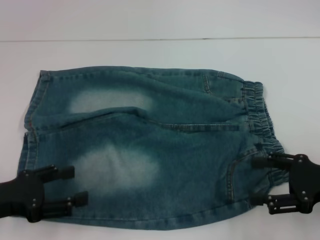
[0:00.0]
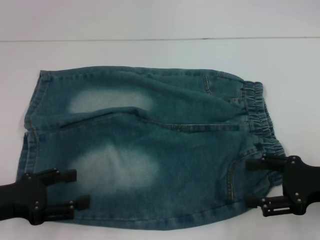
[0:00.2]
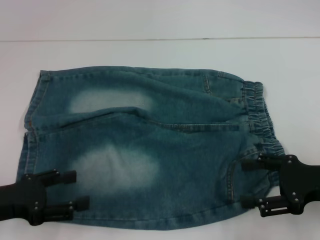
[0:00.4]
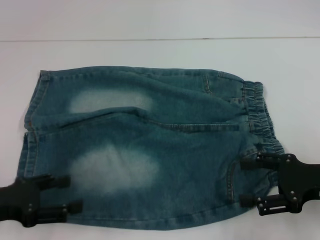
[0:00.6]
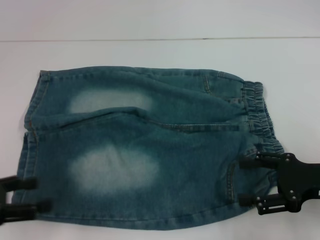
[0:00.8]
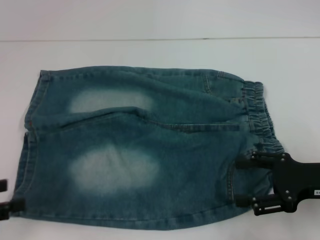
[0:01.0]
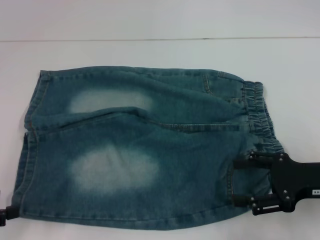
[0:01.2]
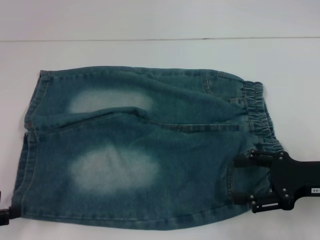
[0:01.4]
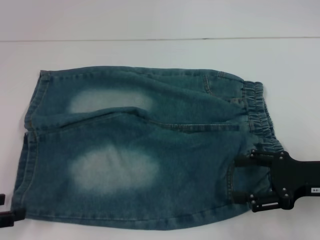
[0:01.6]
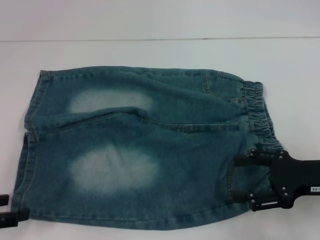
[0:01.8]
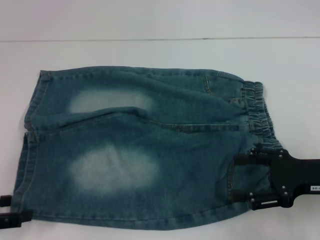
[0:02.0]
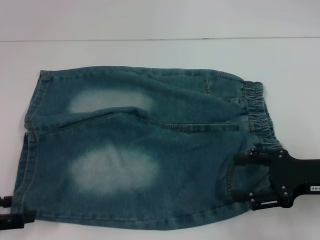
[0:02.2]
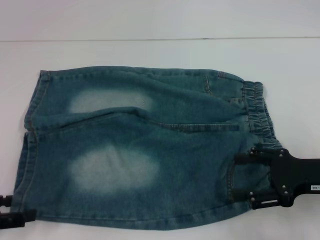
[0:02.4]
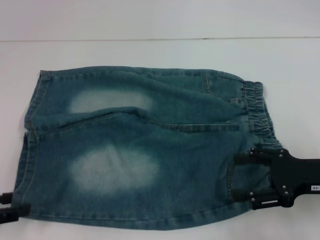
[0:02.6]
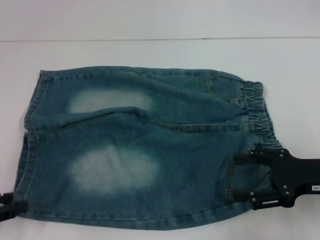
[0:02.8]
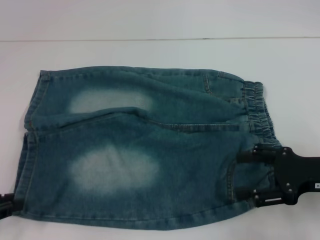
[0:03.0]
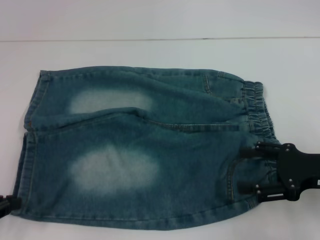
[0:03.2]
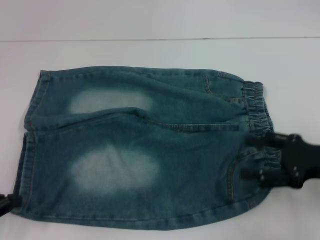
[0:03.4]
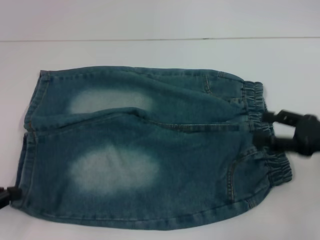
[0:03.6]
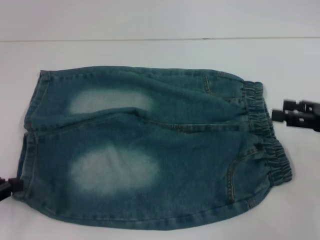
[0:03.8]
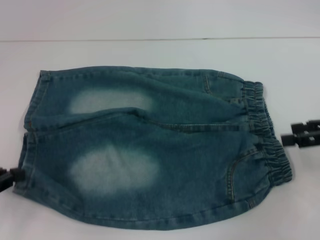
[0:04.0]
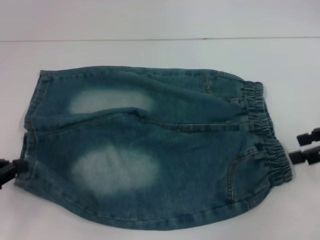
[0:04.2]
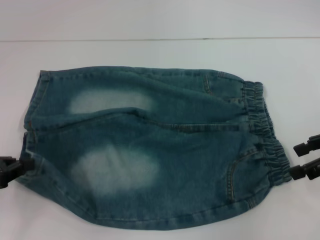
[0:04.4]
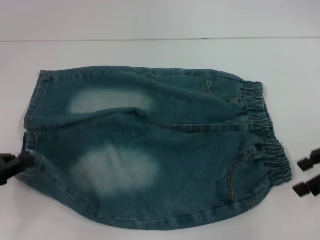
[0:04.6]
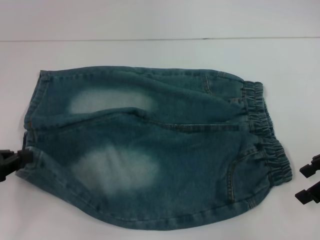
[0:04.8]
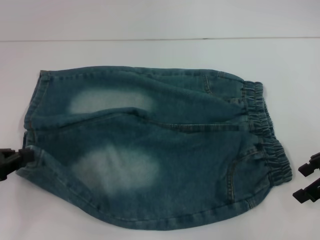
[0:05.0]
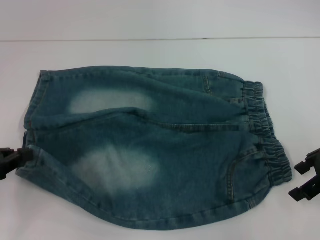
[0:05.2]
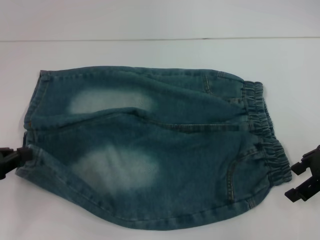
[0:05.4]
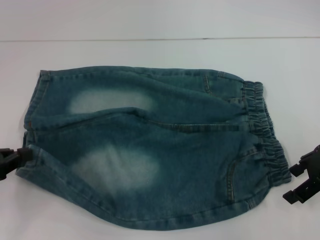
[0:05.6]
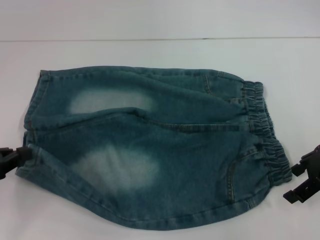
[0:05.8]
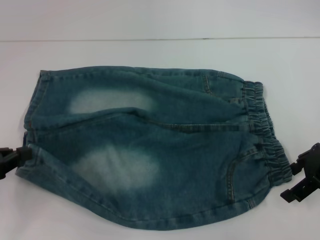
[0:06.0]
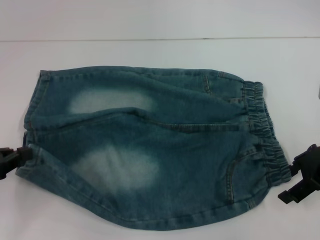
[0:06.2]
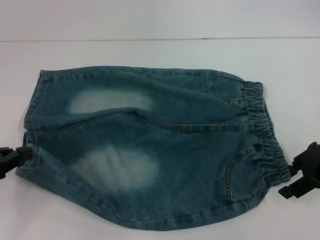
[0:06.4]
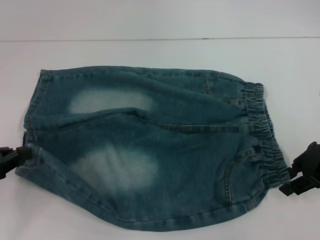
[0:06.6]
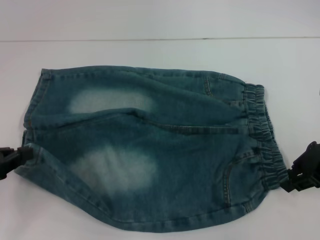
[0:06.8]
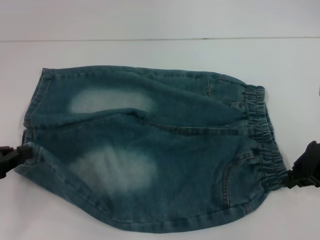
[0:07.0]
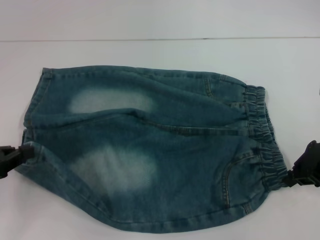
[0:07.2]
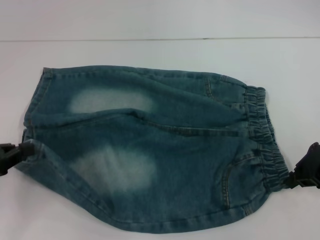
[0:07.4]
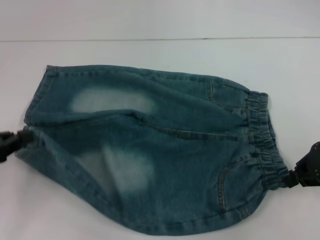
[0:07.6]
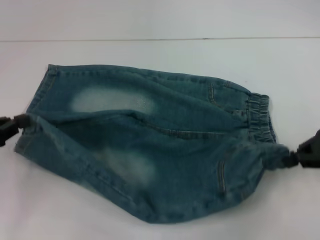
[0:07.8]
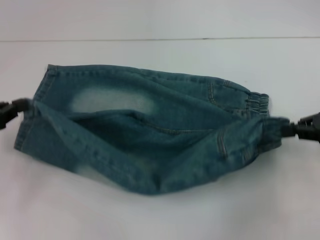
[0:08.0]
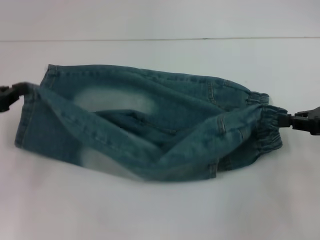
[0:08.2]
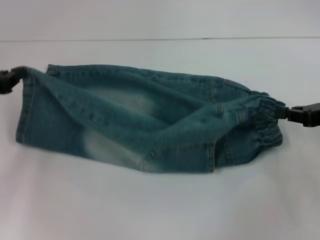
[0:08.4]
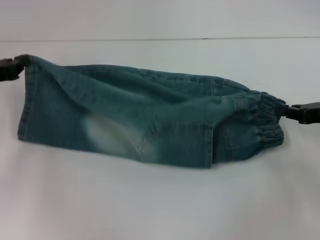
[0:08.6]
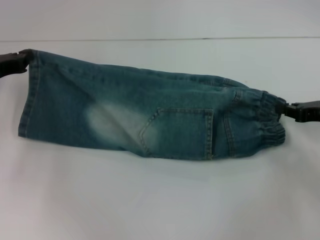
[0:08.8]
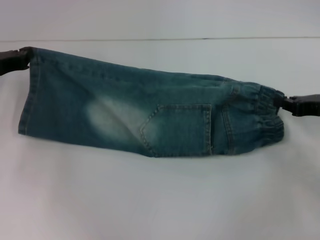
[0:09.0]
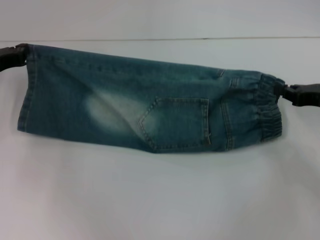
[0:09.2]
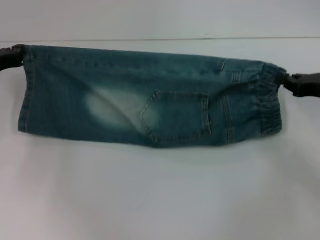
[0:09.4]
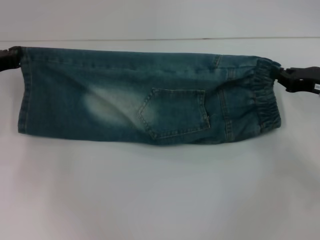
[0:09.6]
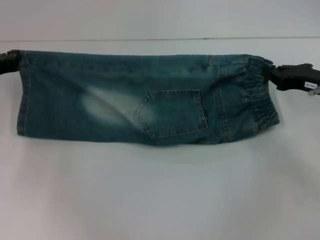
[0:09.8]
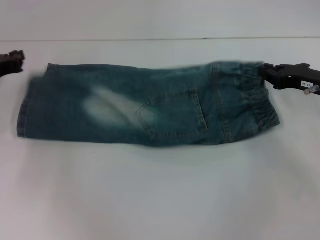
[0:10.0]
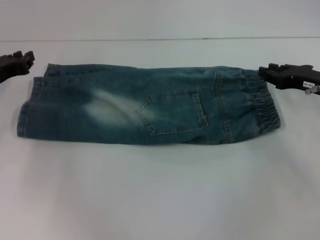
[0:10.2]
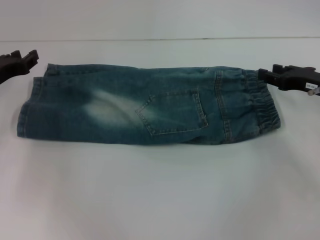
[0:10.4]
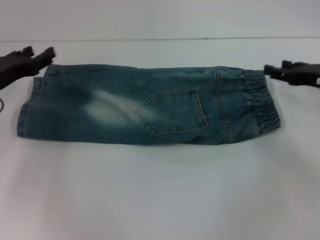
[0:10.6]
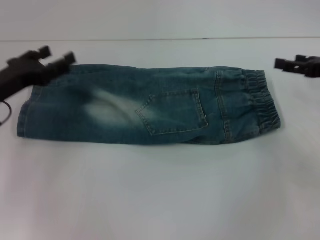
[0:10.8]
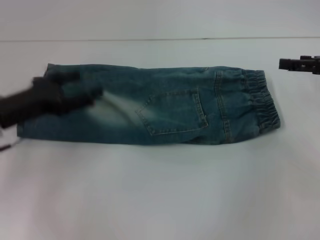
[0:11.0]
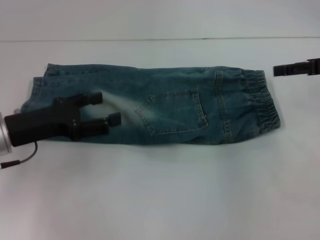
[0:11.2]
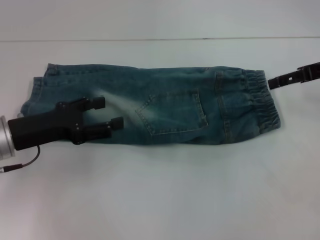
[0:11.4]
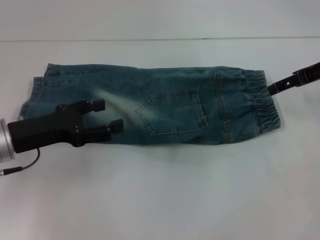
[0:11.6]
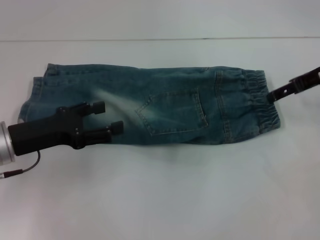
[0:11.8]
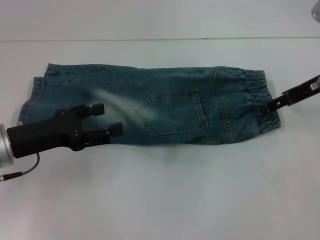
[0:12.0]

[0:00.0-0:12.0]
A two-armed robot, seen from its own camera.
Step, 0:00.0 to 0:03.4: Grab the lower left pant leg with your left hand.
Step, 0:03.8 to 0:07.2: Hold the lower right waistband with your right hand.
Step, 0:07.4 to 0:10.0: Fold upward with your right hand.
0:00.0 to 0:01.6: The left gripper shifts approximately 5 cm to the left.
0:01.6 to 0:03.0: The left gripper closes.
0:03.0 to 0:04.4: The right gripper shifts about 10 cm upward and forward. Meanwhile the left gripper closes.
0:04.4 to 0:06.0: The right gripper shifts by about 5 cm.
0:06.0 to 0:07.6: The right gripper closes up.
0:07.6 to 0:09.0: The left gripper travels forward by about 15 cm; the right gripper shifts some 5 cm downward.
0:09.0 to 0:10.4: The grippers make only small movements.
0:10.4 to 0:12.0: The left gripper heads backward, covering approximately 10 cm, and opens. The right gripper moves upward, about 10 cm, and opens.

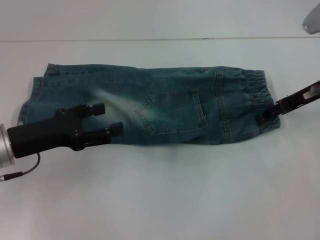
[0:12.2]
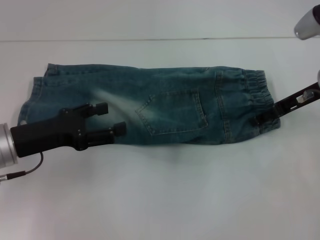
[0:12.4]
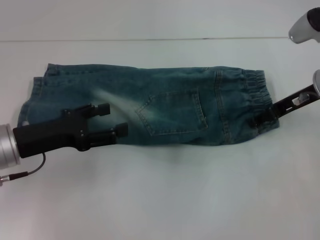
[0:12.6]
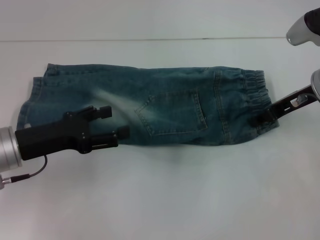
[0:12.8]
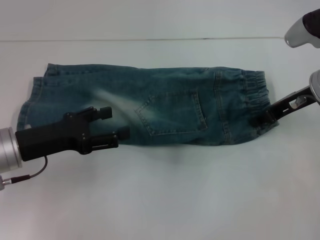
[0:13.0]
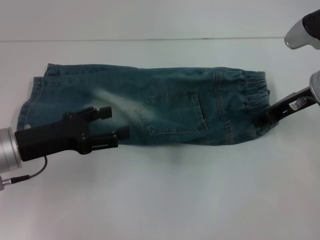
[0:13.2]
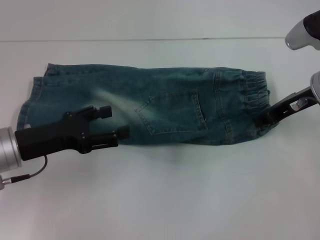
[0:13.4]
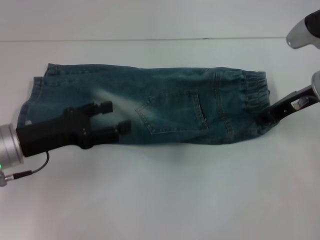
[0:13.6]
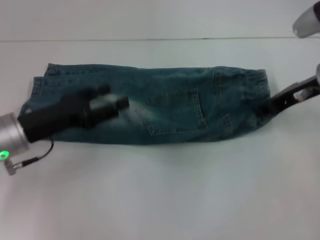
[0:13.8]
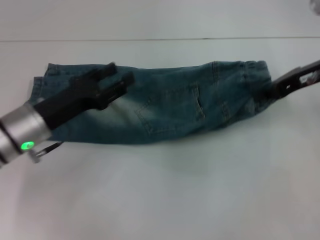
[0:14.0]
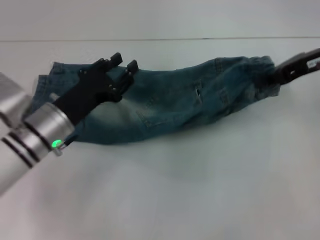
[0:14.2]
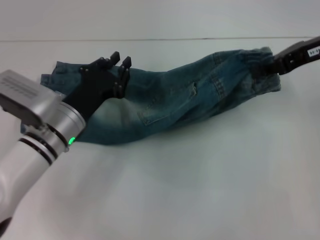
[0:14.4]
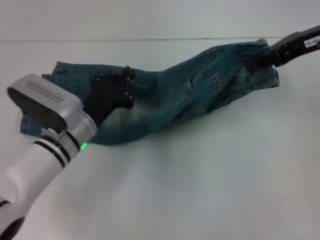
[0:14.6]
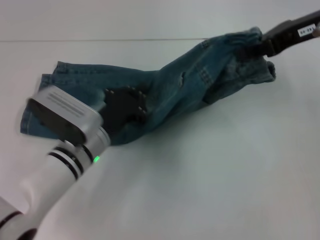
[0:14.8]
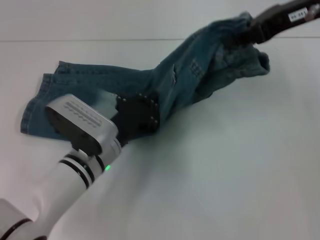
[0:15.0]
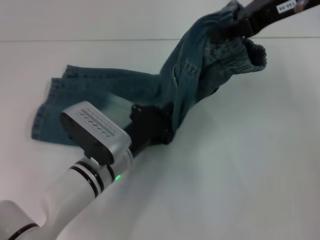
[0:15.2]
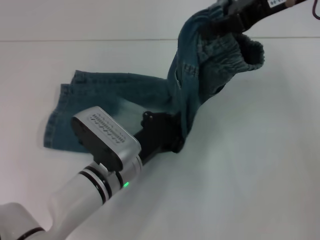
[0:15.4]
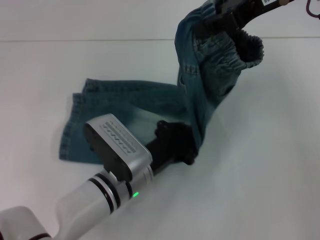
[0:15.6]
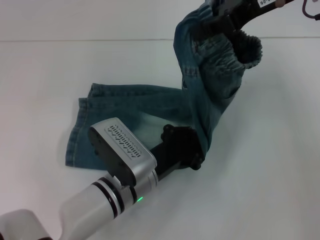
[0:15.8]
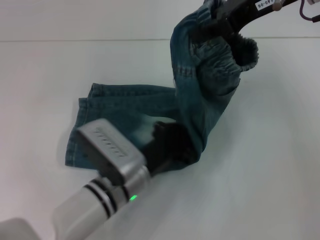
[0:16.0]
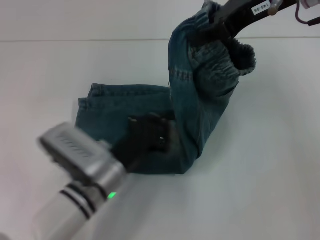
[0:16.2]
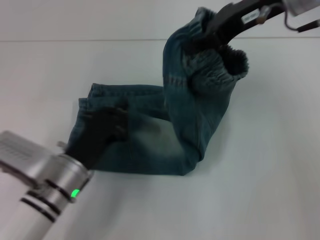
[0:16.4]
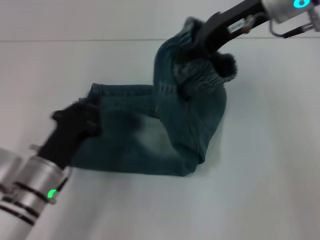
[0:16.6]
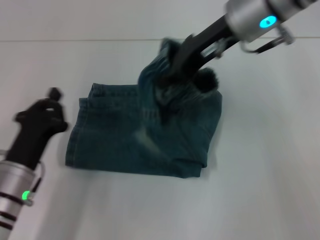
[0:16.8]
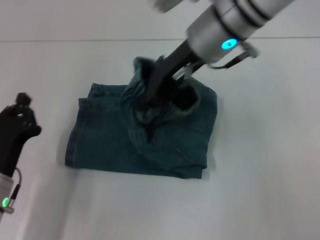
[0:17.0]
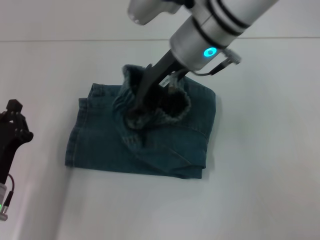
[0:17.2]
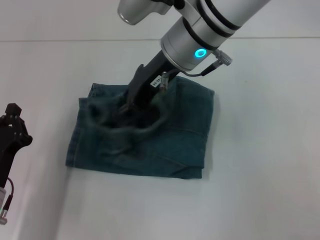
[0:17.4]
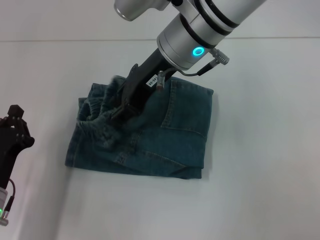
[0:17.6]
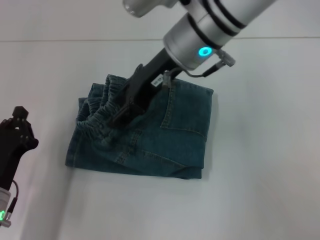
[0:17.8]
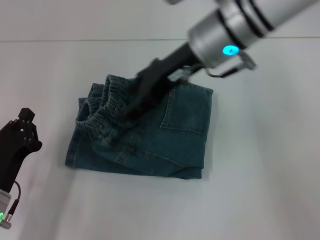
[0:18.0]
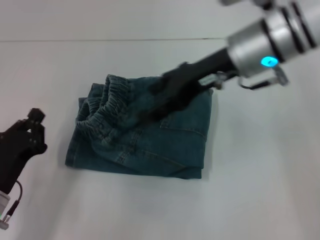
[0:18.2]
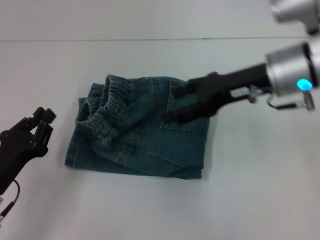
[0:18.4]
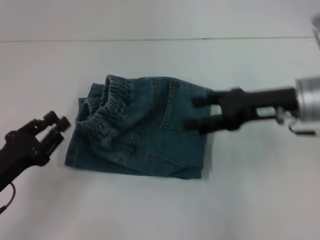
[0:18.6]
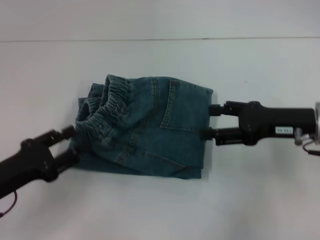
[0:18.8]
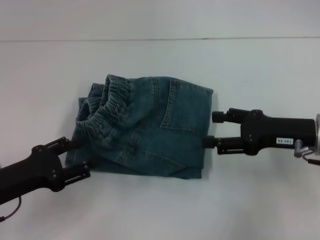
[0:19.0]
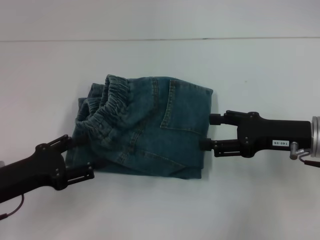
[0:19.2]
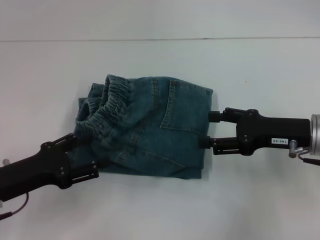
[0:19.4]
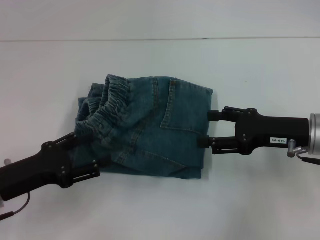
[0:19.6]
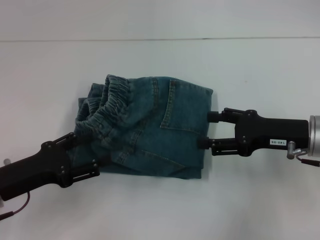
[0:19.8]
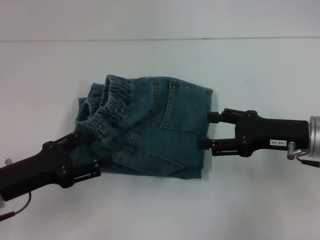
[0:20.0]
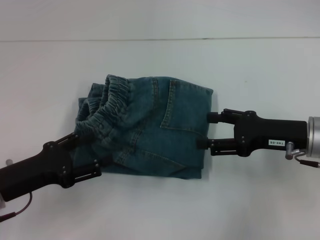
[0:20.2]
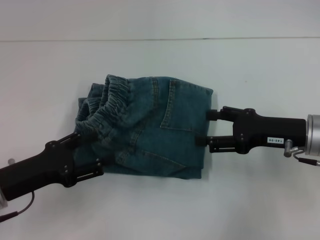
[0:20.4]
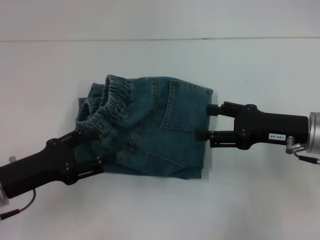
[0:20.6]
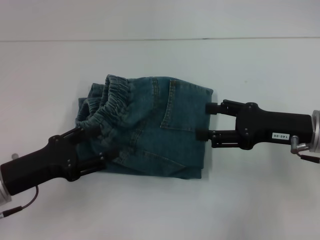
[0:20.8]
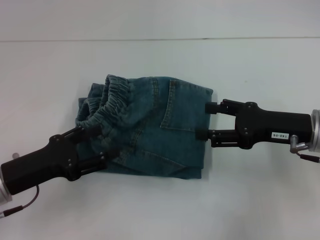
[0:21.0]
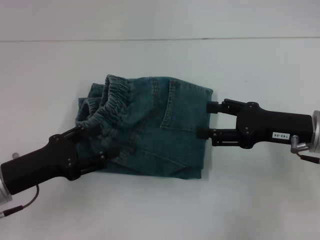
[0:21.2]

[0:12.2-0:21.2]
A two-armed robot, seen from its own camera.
Step, 0:13.6 to 0:15.8: Press the middle of the pants with your left hand.
Step, 0:16.0 to 0:17.6: Fold to the left with your right hand.
0:12.2 to 0:13.8: The right gripper closes its fingers.
0:13.8 to 0:15.2: The left gripper moves to the right and downward, approximately 15 cm, and closes up. Meanwhile the right gripper heads upward, covering approximately 15 cm.
0:15.2 to 0:16.6: Both grippers travel together to the left, about 5 cm.
0:16.6 to 0:18.2: The right gripper moves downward, about 5 cm, reaches approximately 10 cm to the left, then returns, and opens its fingers. Meanwhile the left gripper moves to the left, approximately 5 cm.
0:18.2 to 0:19.8: The left gripper travels upward by roughly 5 cm, and opens. The right gripper shifts some 20 cm downward, to the right and backward.
0:19.8 to 0:21.2: The grippers stay close to where they were, moving slightly.

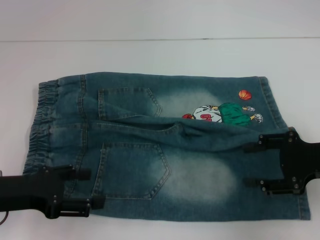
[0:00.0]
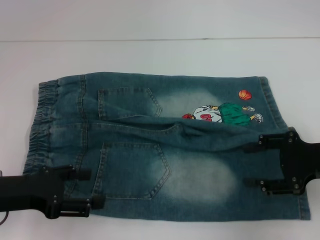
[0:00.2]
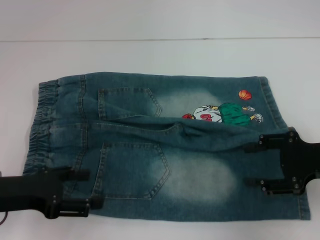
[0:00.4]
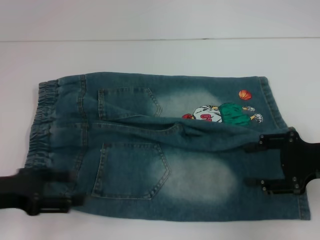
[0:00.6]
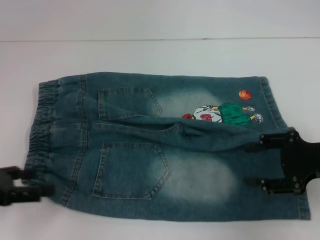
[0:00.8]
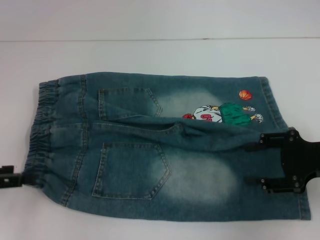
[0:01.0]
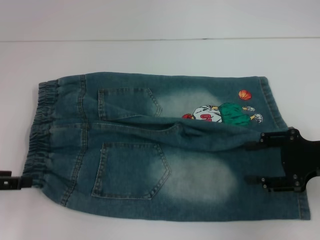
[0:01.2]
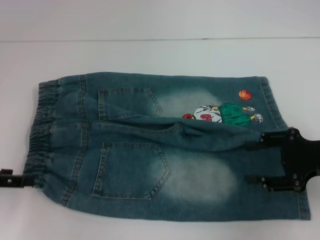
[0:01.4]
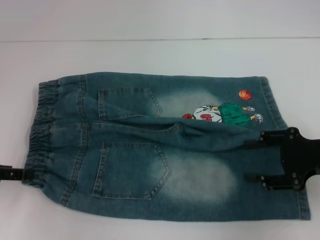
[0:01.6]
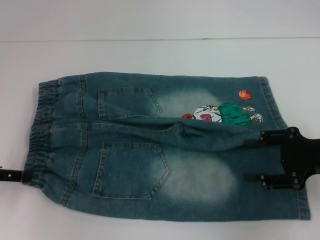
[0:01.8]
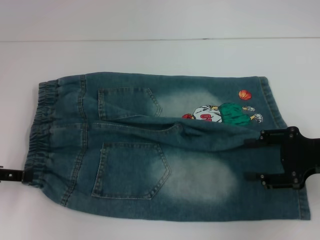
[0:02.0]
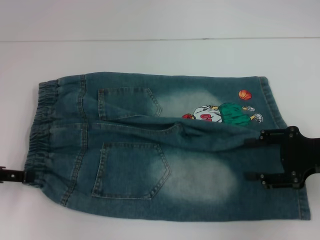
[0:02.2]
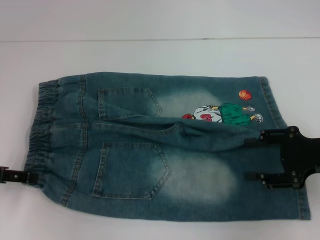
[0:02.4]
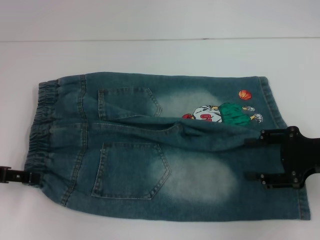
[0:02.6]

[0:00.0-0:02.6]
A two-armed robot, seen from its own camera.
0:00.0 to 0:01.2: The left gripper heads to the left, covering some 10 cm.
0:01.2 to 0:02.6: There are only small adjustments of the grippers.
